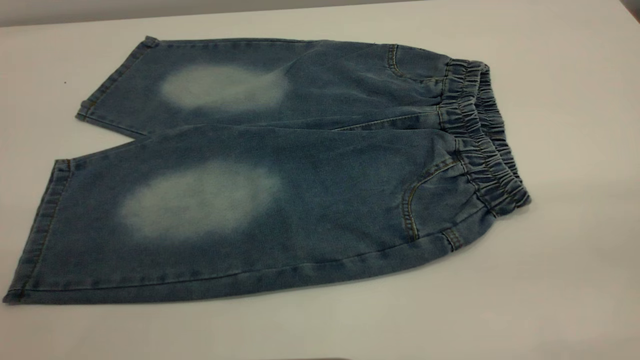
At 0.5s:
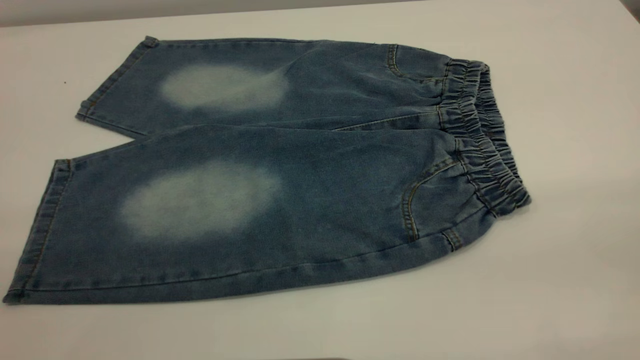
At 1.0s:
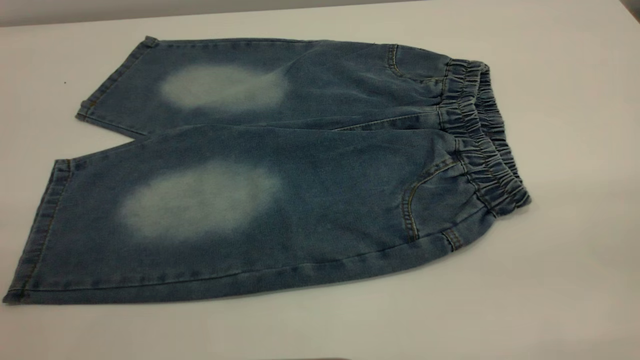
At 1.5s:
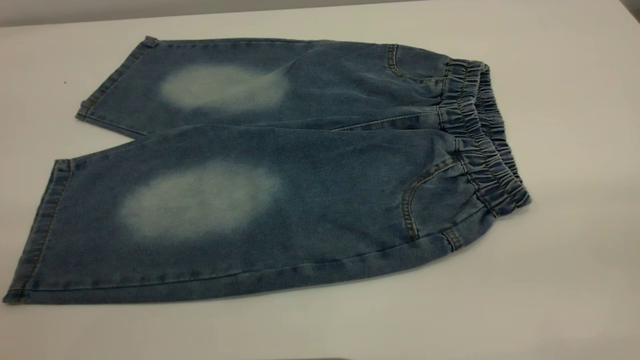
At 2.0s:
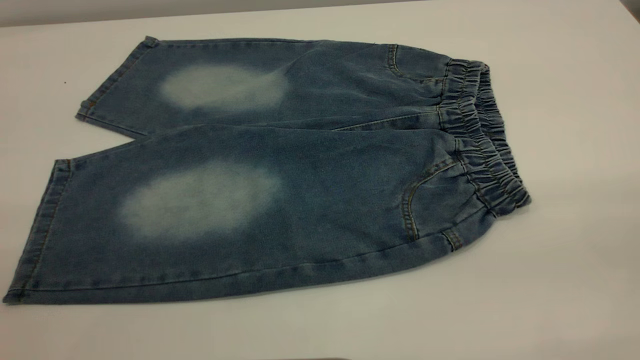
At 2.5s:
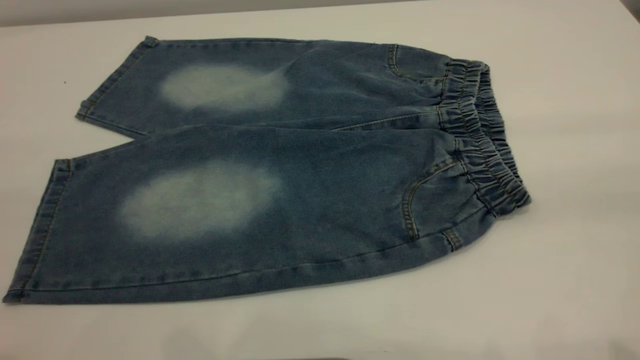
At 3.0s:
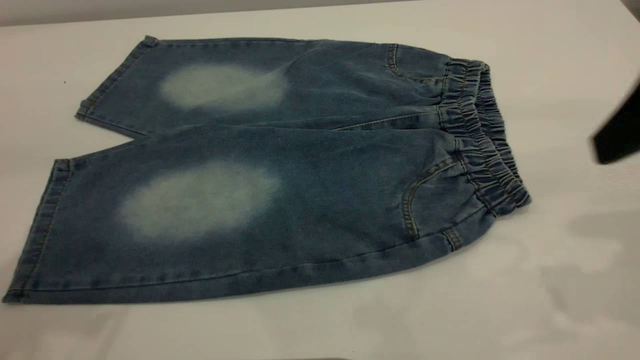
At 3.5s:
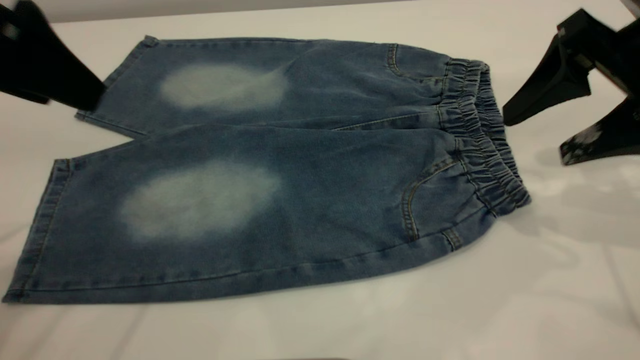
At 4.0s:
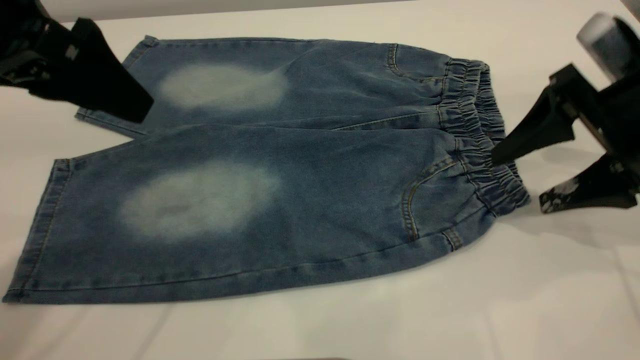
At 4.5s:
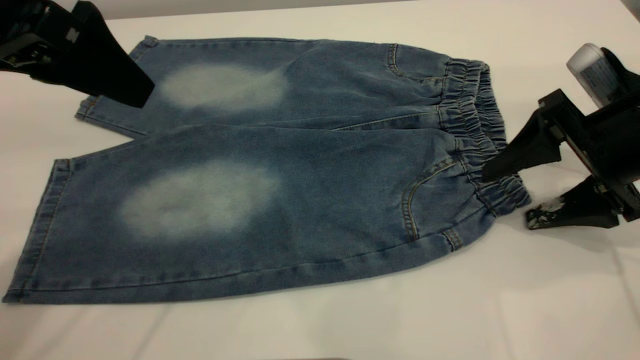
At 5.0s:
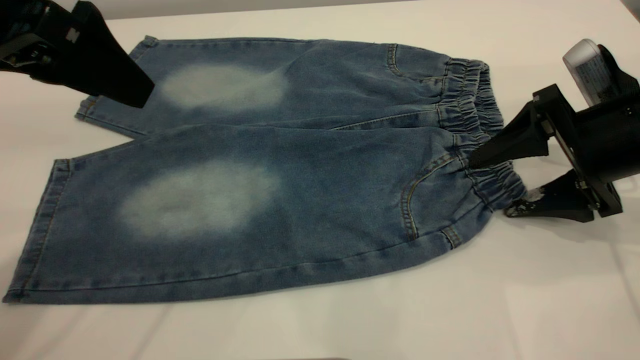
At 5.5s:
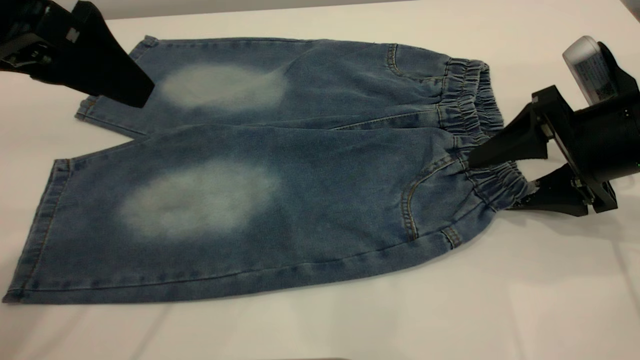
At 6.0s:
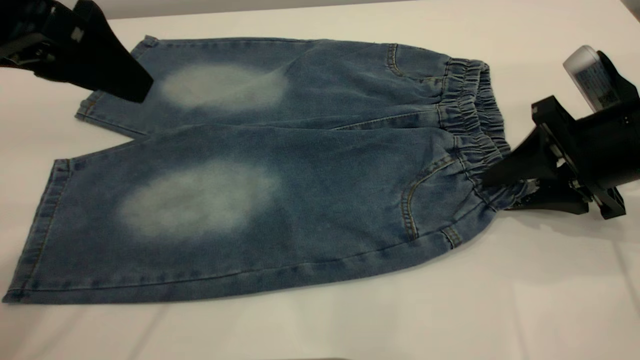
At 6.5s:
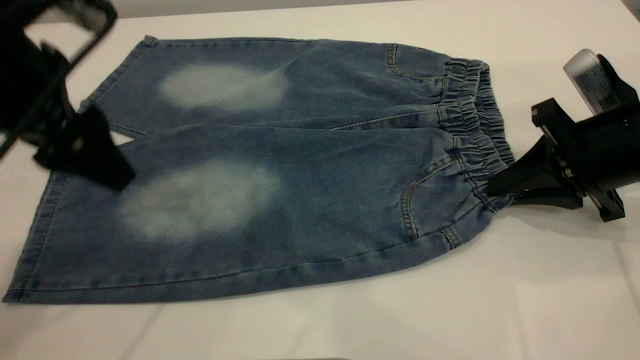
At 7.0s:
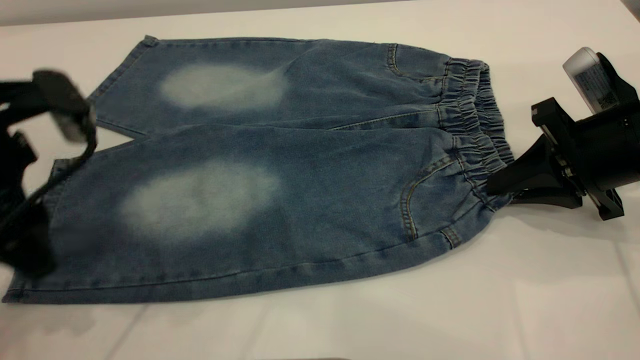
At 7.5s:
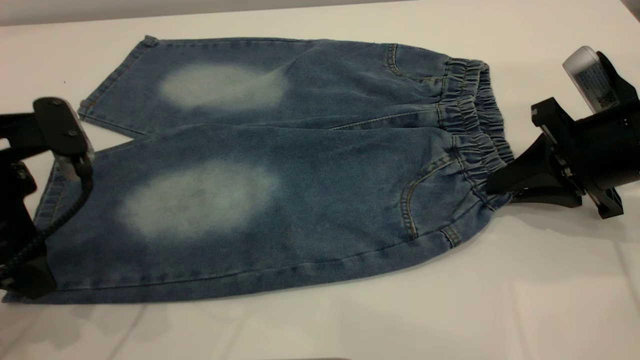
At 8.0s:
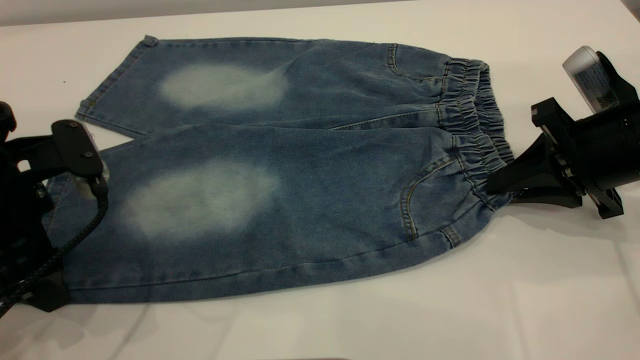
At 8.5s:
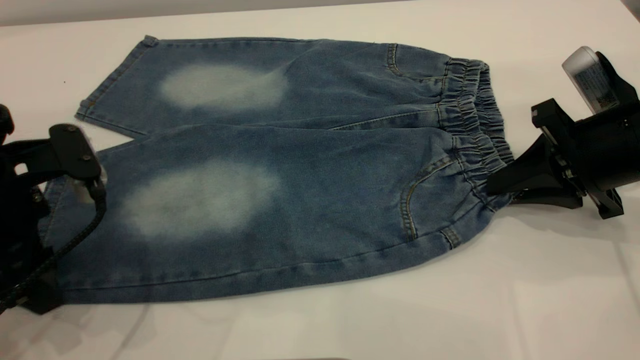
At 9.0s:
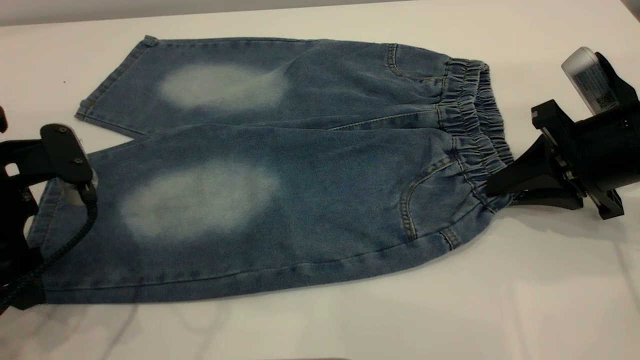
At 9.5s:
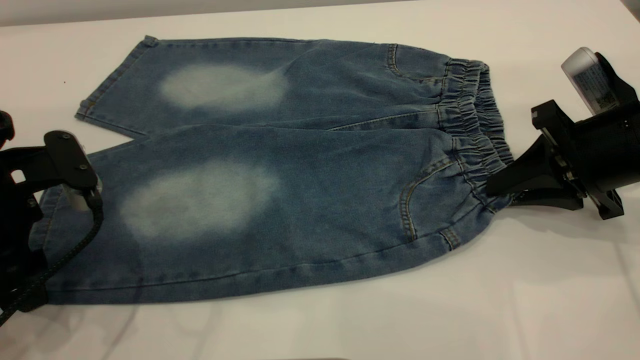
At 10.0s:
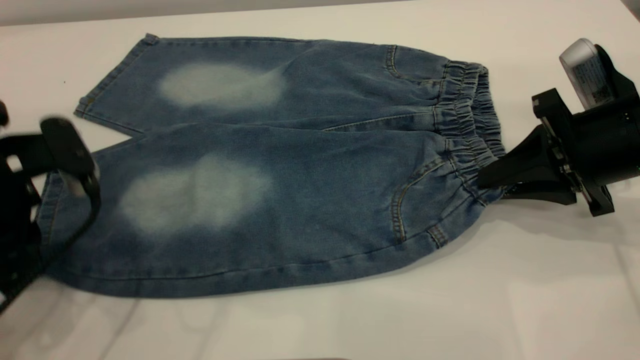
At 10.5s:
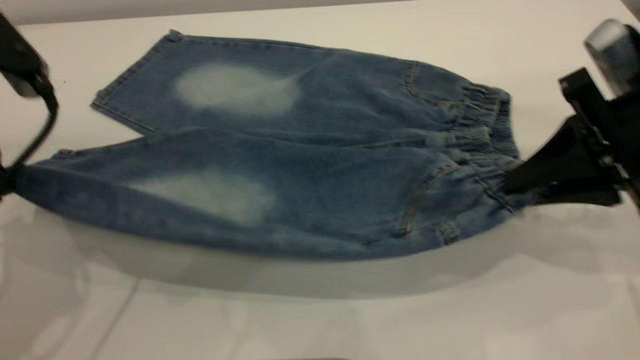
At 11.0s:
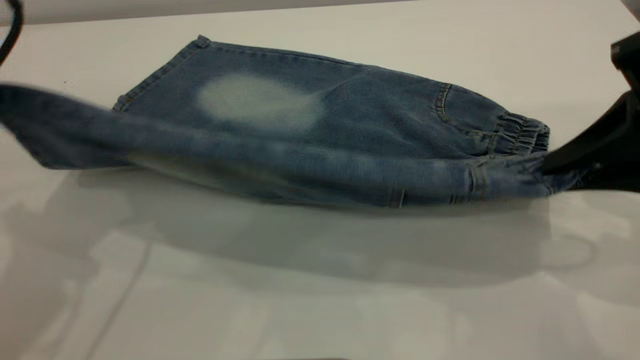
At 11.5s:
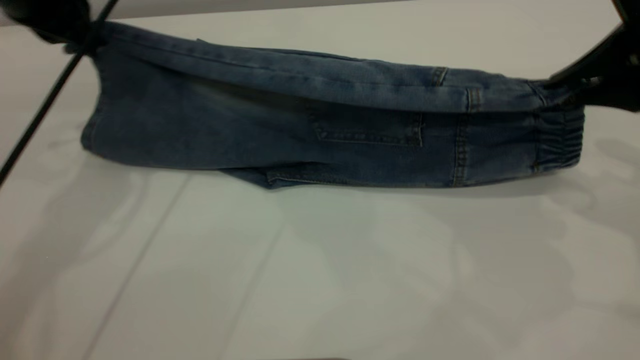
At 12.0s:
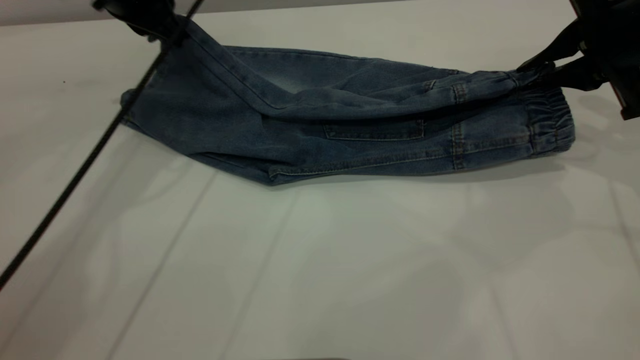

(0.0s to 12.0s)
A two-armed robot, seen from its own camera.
0.0s - 2.0s: Neither gripper changes place.
2.0s - 4.0s: The left gripper travels forward by about 25 cm. Meanwhile the right gripper shifts about 35 cm forward and downward.
4.0s - 6.0s: The right gripper closes up.
6.0s - 8.0s: The left gripper moves downward, roughly 15 cm.
8.0s - 10.0s: The left gripper closes its fingers.
10.0s - 12.0s: The left gripper is displaced forward by approximately 20 cm, while the right gripper is displaced forward and upward by approximately 10 cm.

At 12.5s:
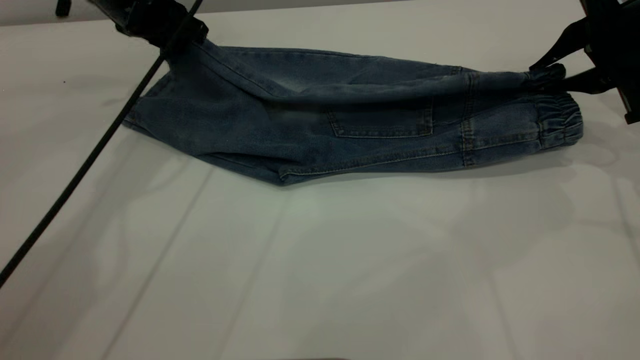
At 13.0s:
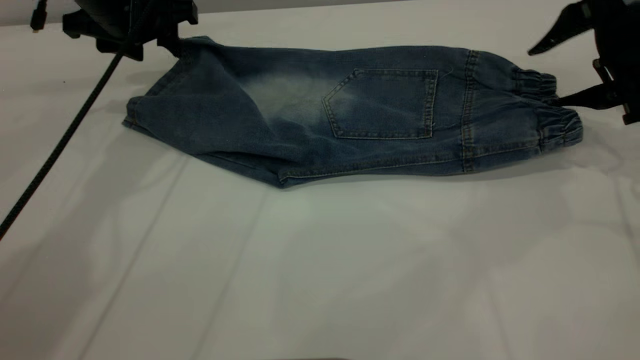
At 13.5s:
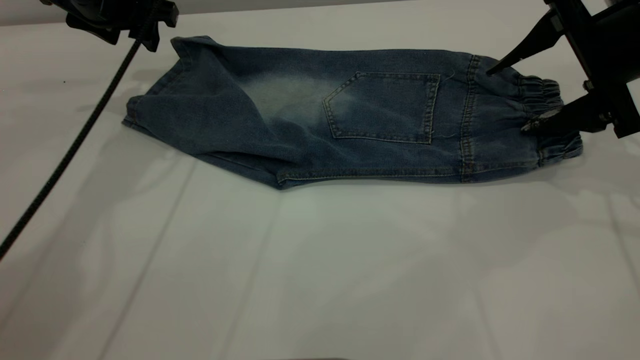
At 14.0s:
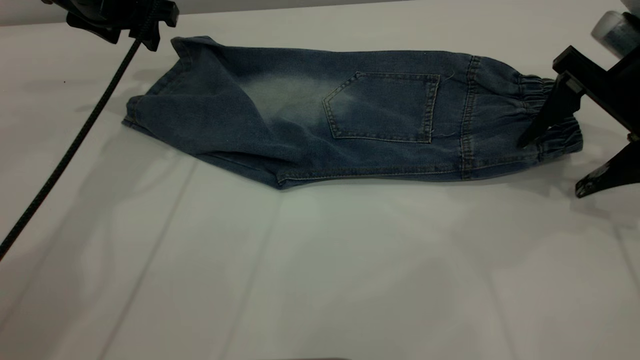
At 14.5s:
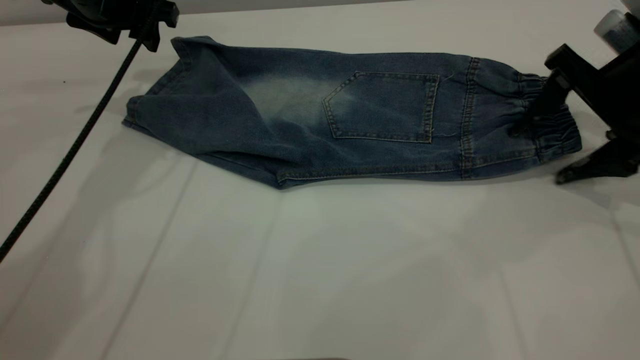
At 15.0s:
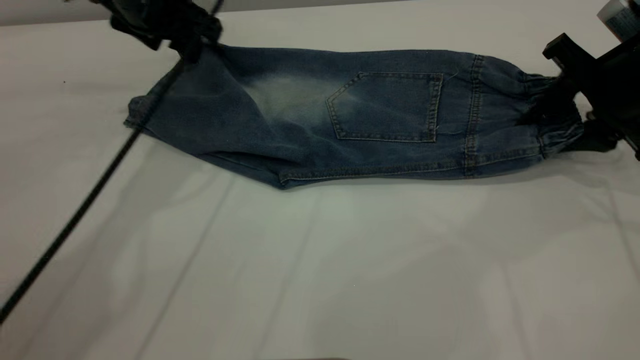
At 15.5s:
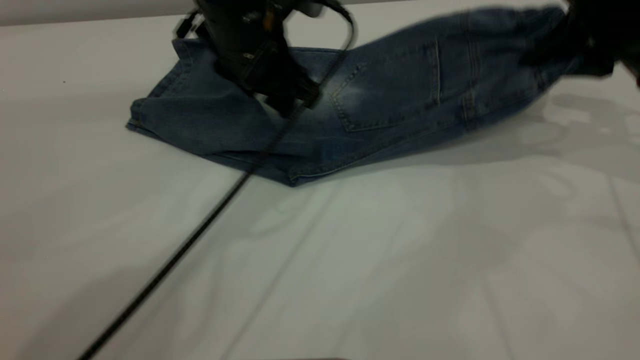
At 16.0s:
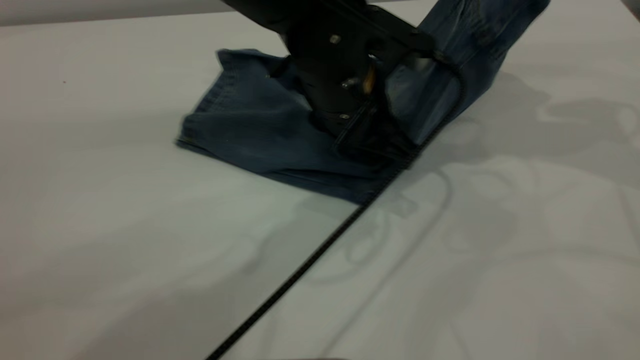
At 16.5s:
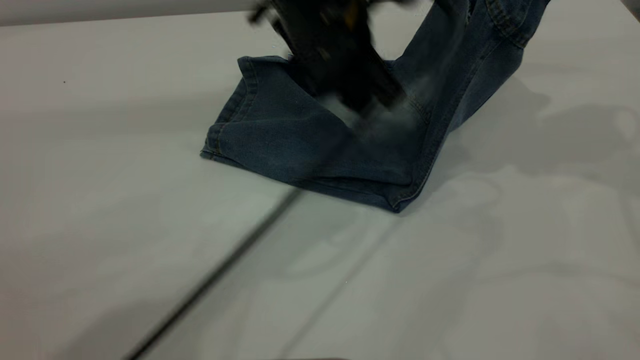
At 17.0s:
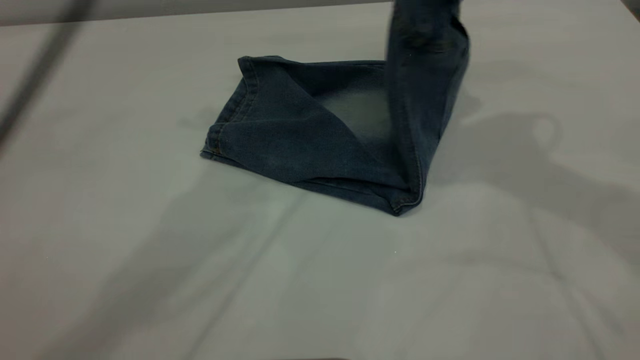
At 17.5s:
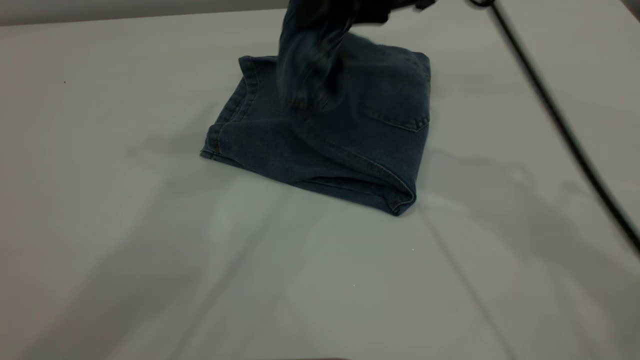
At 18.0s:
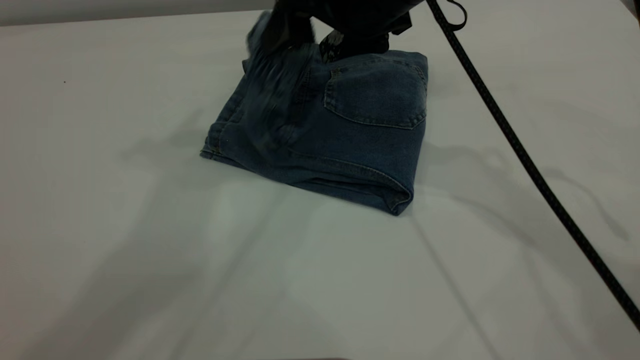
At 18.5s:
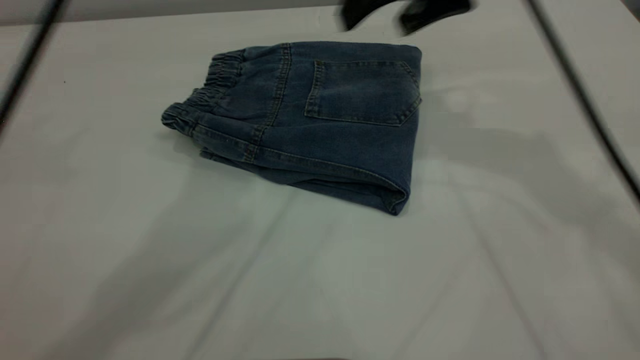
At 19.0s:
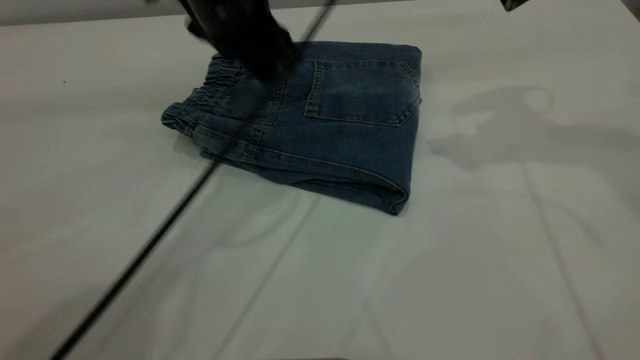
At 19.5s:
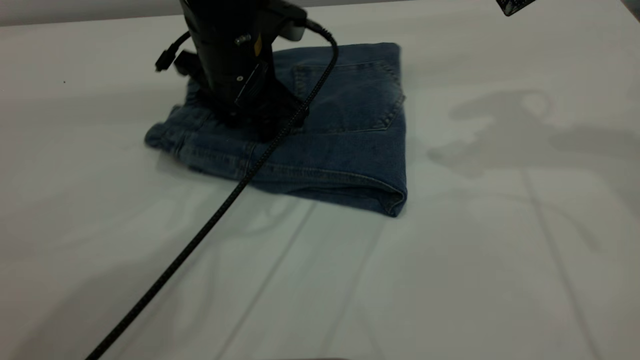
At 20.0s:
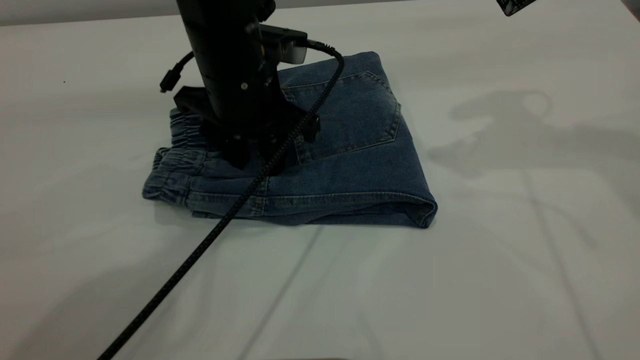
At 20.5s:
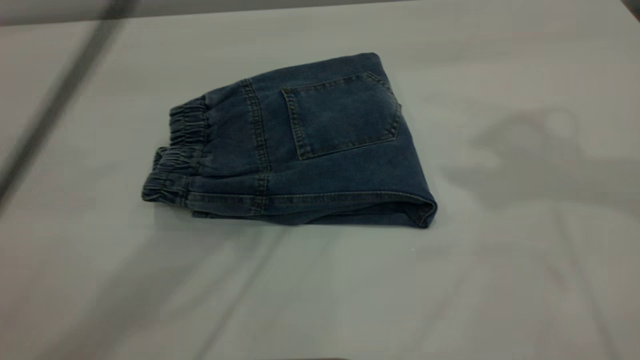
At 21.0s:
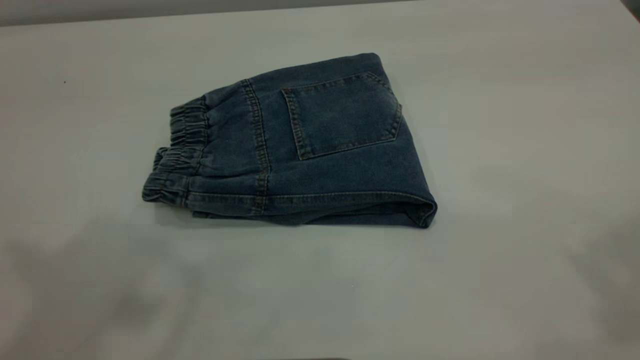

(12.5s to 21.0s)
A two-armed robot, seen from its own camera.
Step, 14.0s - 18.0s: Fold your pants from right to left.
12.5s - 14.5s: The right gripper opens its fingers.
14.5s - 16.5s: The left gripper heads to the right and backward, covering approximately 25 cm. The right gripper heads upward, covering roughly 15 cm, and closes its fingers.
16.5s - 19.0s: The left gripper moves to the left, roughly 5 cm, and moves approximately 30 cm upward and comes back; the right gripper travels to the left and back again, about 20 cm each way, and opens.
19.0s - 21.0s: The right gripper travels upward and backward by roughly 30 cm. Meanwhile the left gripper moves upward, backward and to the left, about 40 cm.
